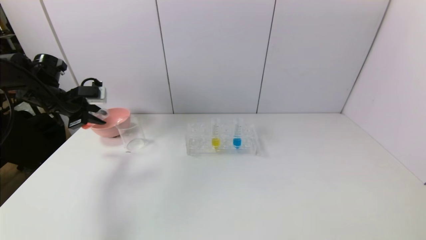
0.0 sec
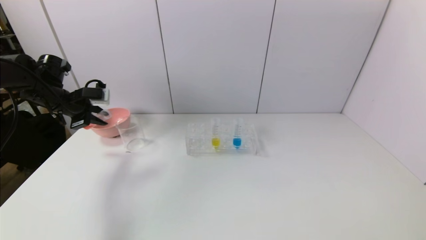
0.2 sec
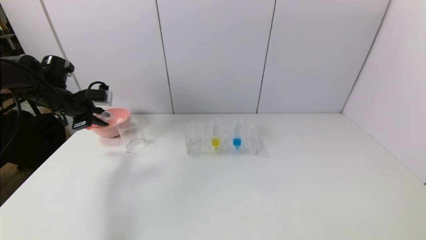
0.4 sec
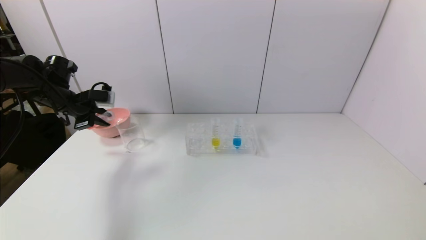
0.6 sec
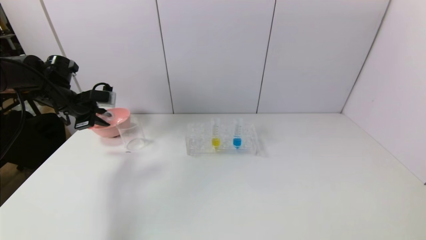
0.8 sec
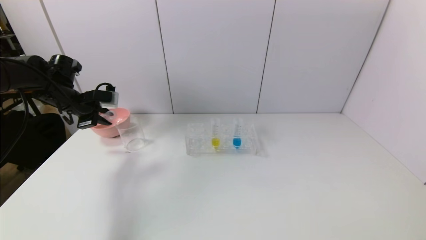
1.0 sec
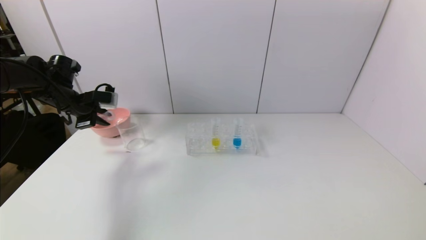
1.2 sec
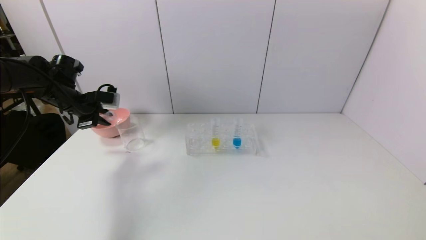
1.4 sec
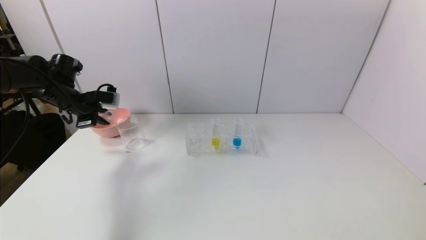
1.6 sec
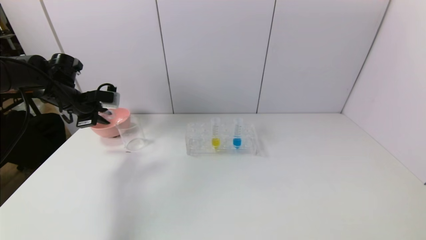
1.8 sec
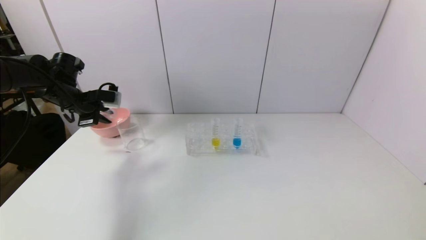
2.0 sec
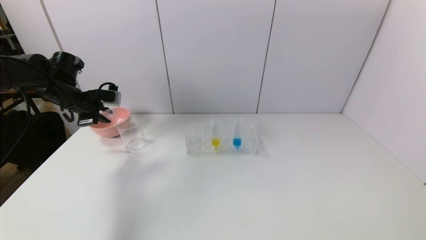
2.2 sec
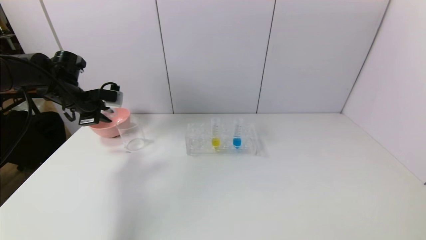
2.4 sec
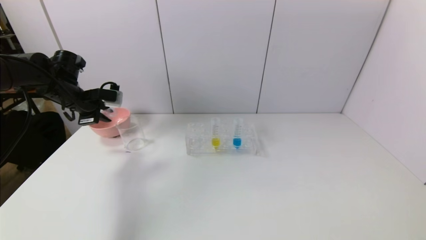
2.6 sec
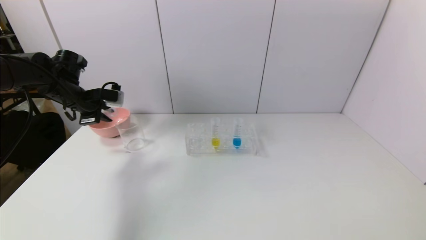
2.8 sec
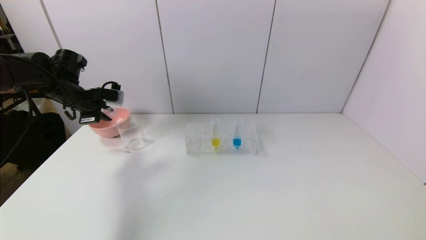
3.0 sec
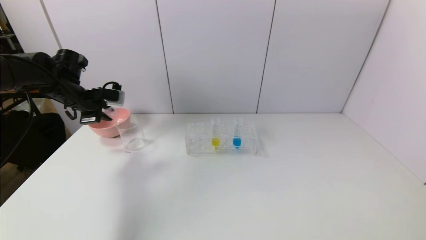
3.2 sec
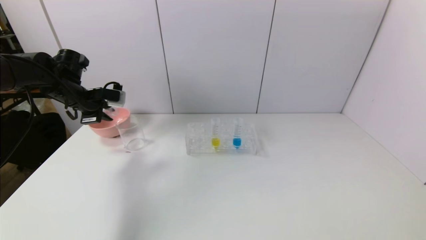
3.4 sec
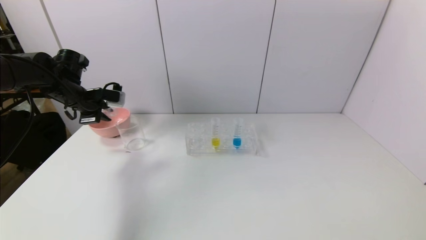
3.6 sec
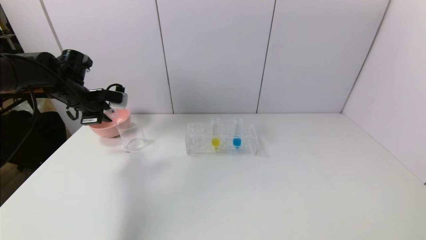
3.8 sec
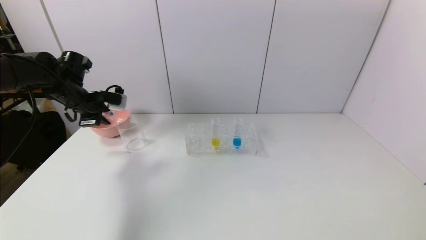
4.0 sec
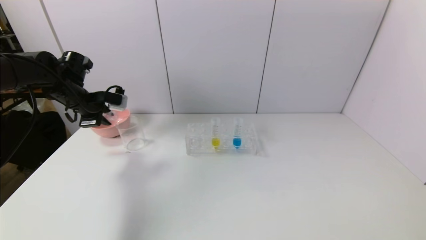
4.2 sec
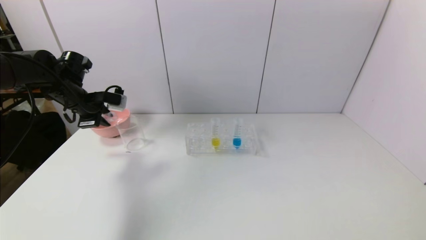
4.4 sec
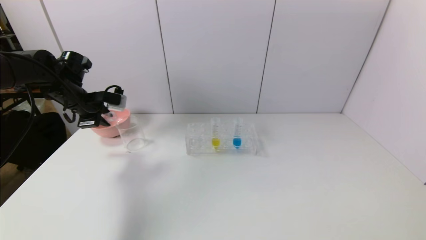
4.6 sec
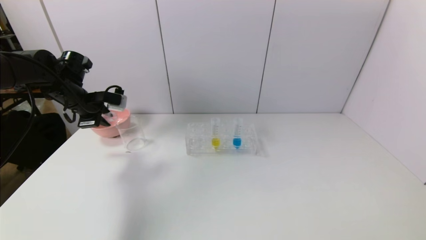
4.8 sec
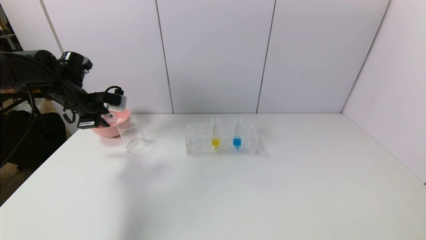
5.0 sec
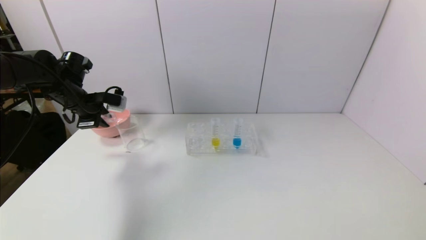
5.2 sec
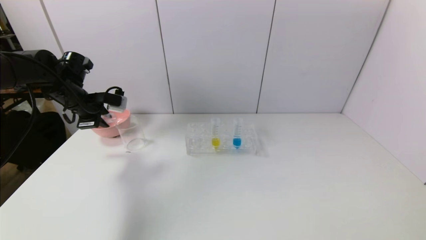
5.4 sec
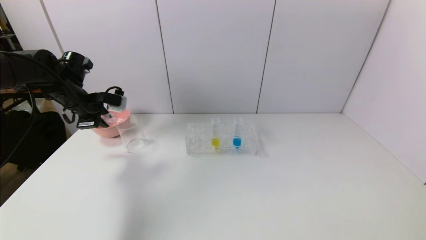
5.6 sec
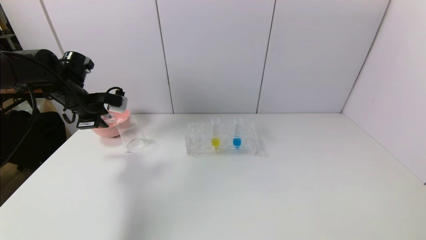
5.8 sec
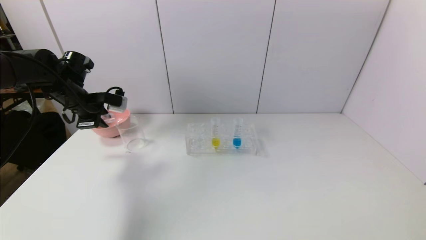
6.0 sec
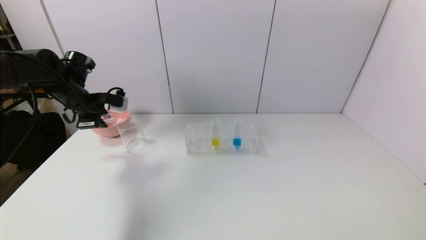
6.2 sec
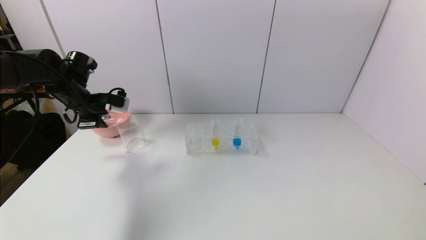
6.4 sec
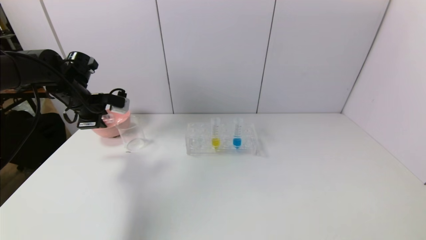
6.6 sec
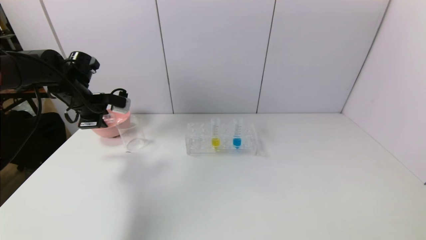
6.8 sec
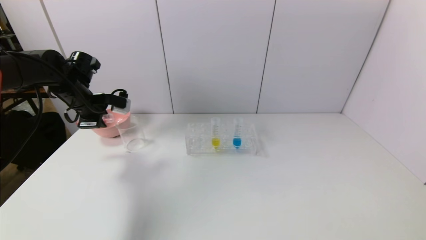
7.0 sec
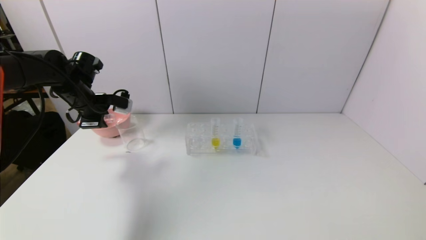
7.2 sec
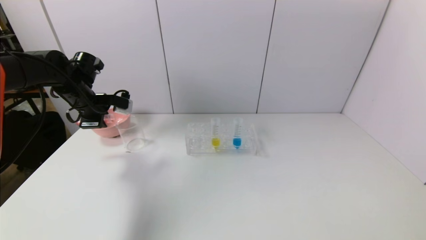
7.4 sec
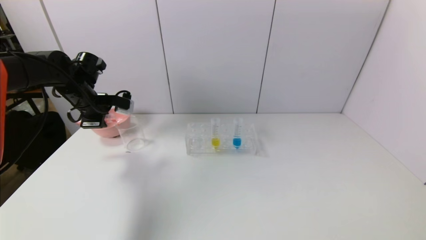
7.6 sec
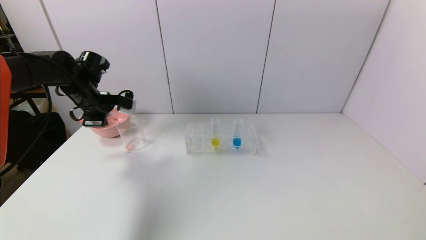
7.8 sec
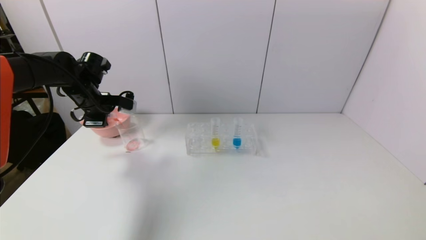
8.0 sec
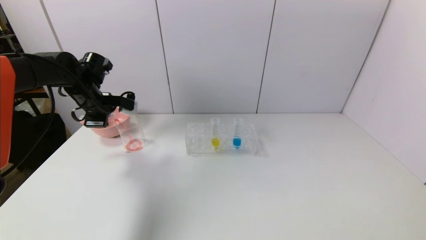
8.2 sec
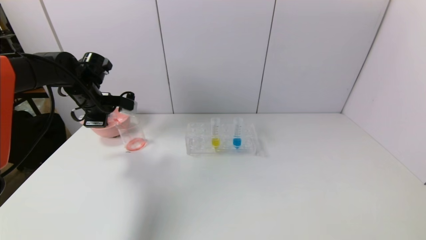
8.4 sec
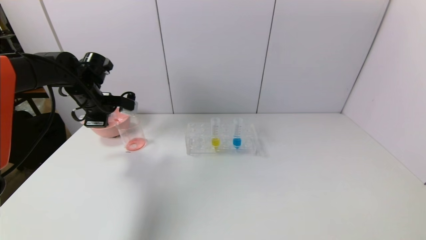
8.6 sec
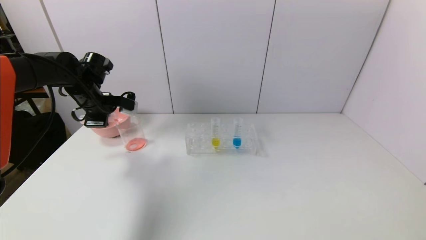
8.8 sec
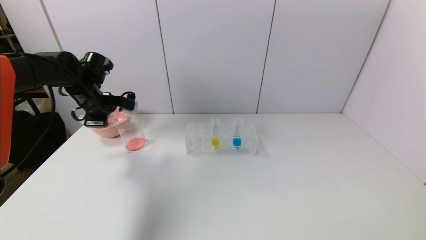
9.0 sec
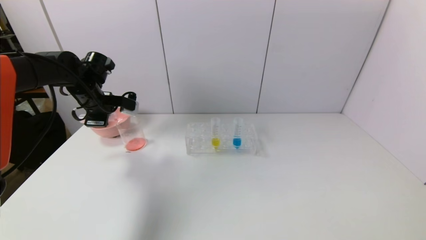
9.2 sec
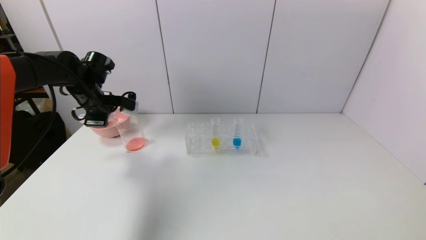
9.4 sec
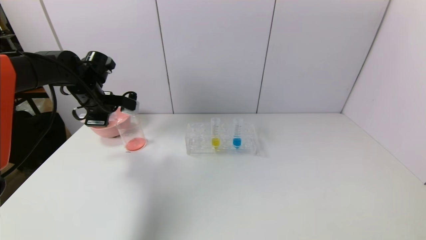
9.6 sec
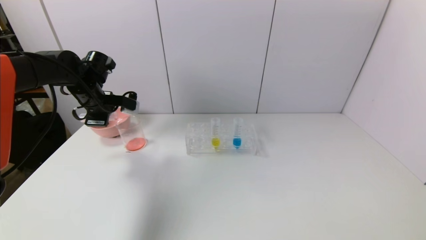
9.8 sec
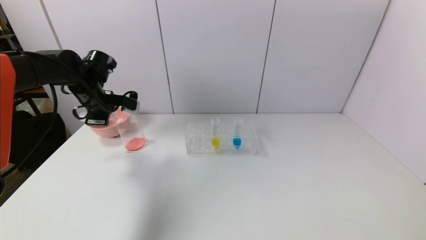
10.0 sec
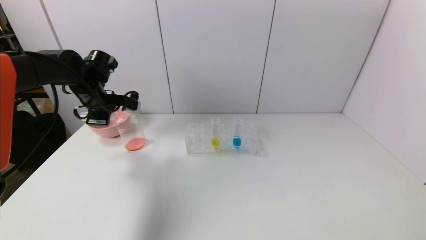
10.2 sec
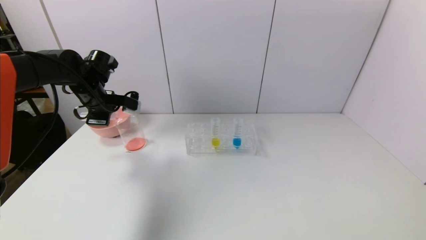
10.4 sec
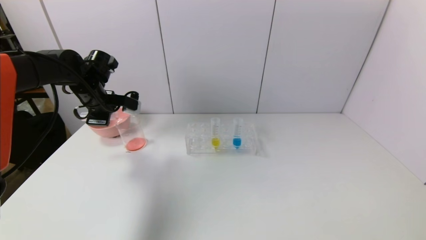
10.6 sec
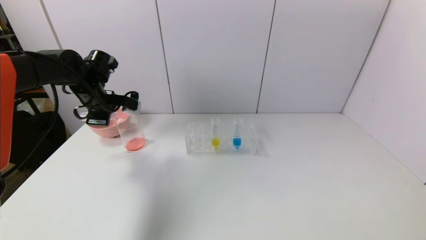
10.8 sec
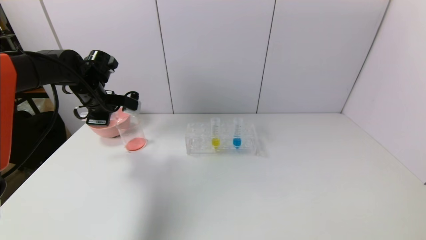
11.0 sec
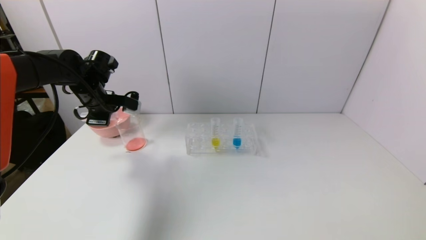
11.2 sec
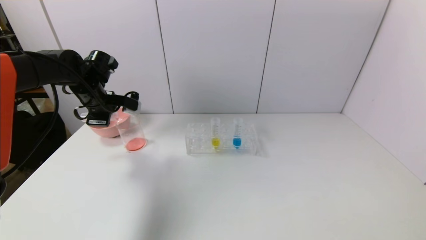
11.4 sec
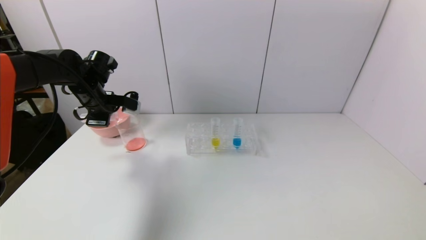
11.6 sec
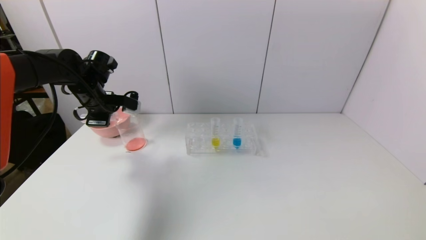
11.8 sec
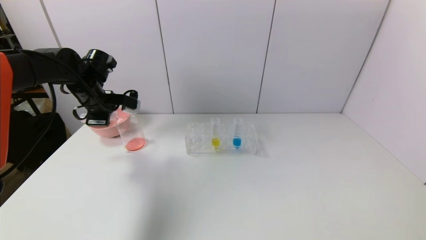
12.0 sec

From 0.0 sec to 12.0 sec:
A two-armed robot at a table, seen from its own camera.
Task of the whole recording: pick up the test tube with red pigment and the test tube with blue pigment by grippers and pour them into the container.
From 0.0 sec to 4.4 sec: There are only small adjustments of the grippers.
From 4.4 sec to 6.0 sec: Both grippers stay about where they are.
From 6.0 sec to 7.6 sec: The grippers make only small movements.
From 7.6 sec to 9.0 sec: Both grippers stay about where they are.
From 9.0 sec to 10.4 sec: The two grippers keep their place.
From 10.4 sec to 12.0 sec: Neither gripper changes place.

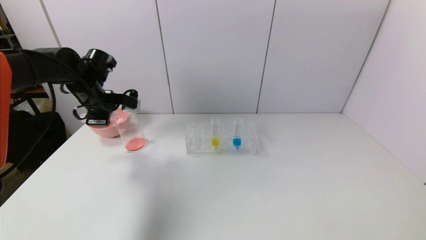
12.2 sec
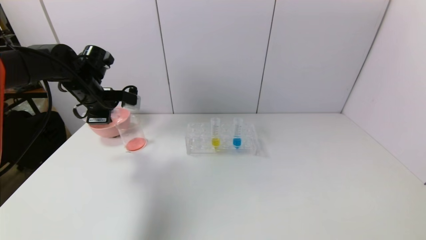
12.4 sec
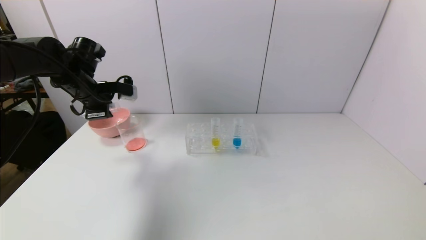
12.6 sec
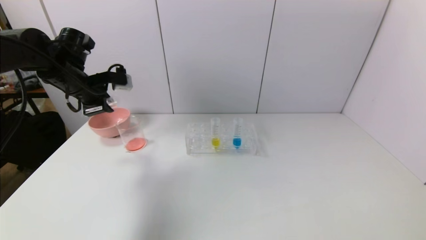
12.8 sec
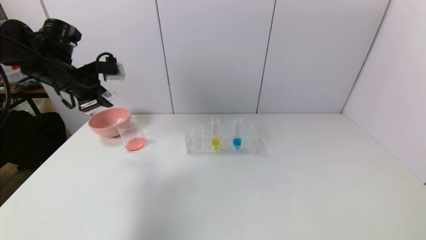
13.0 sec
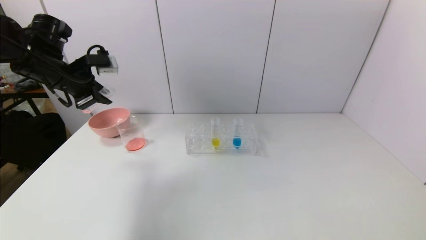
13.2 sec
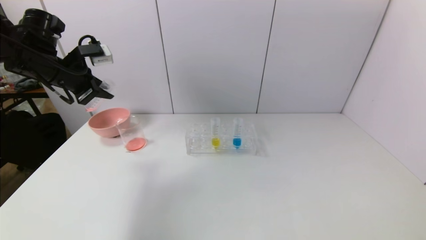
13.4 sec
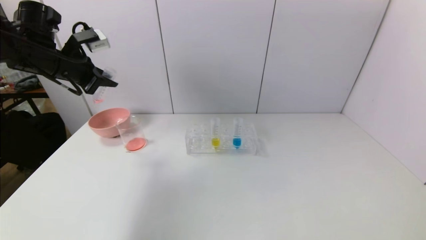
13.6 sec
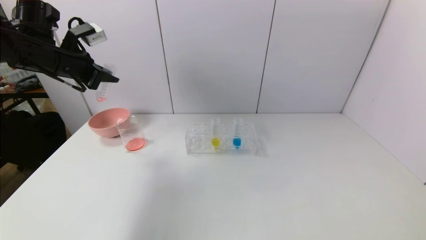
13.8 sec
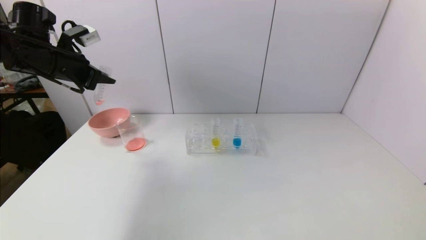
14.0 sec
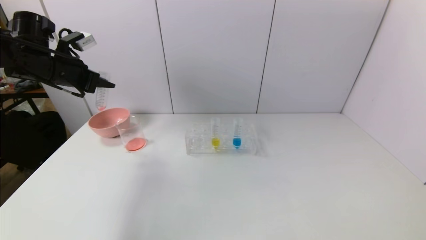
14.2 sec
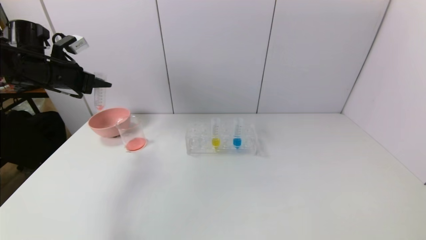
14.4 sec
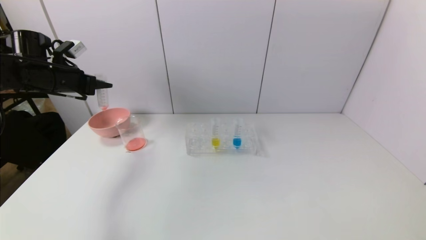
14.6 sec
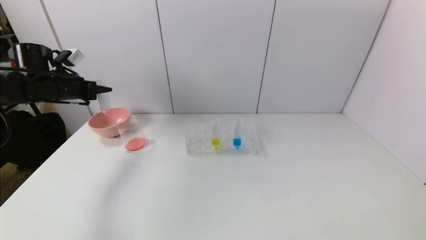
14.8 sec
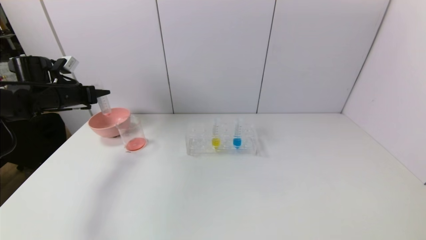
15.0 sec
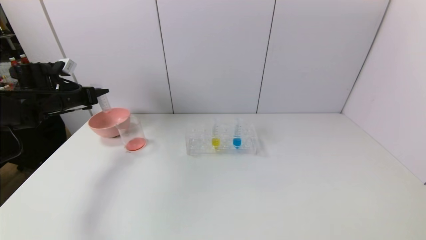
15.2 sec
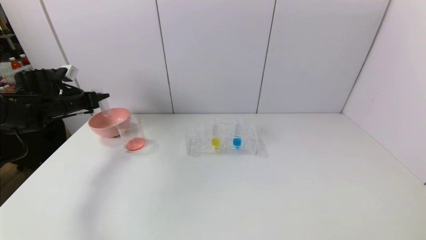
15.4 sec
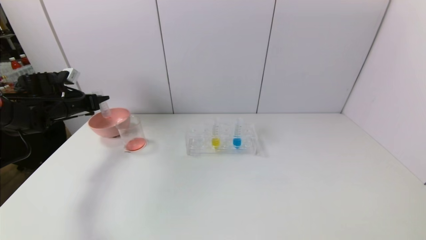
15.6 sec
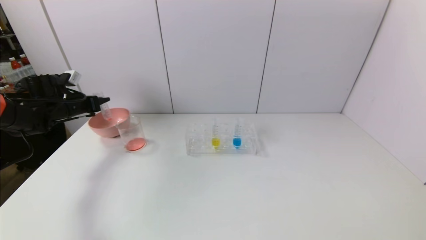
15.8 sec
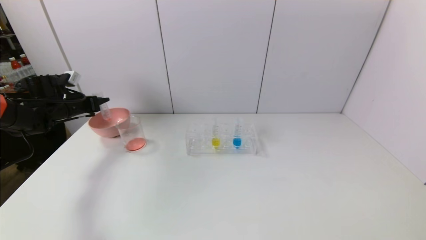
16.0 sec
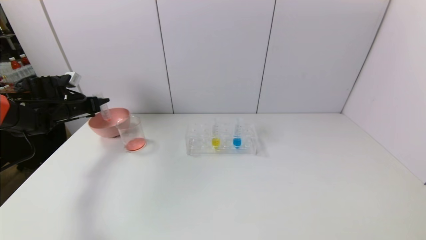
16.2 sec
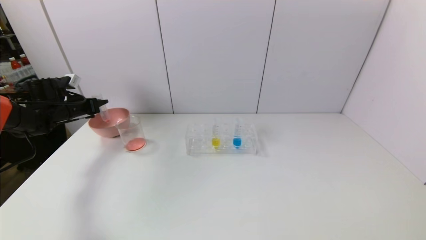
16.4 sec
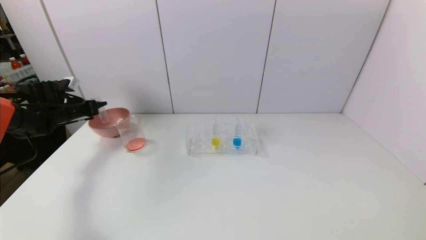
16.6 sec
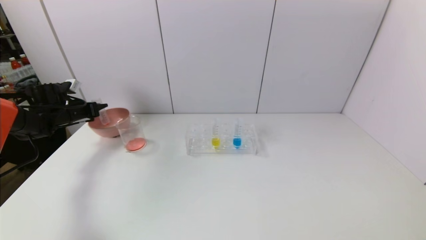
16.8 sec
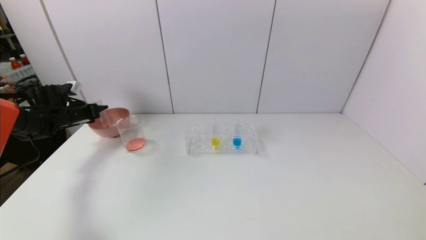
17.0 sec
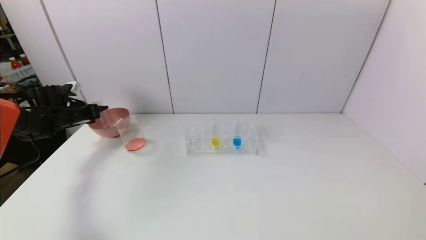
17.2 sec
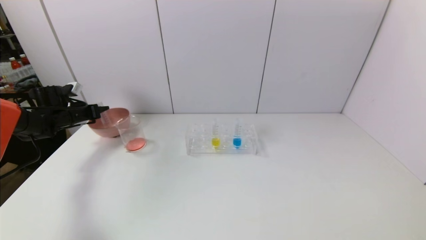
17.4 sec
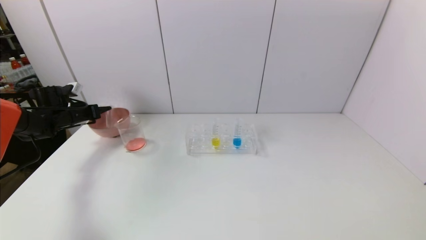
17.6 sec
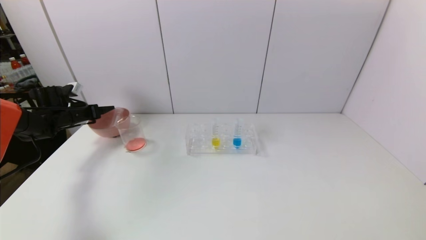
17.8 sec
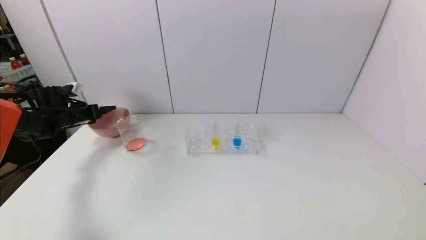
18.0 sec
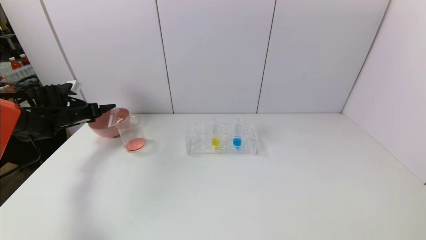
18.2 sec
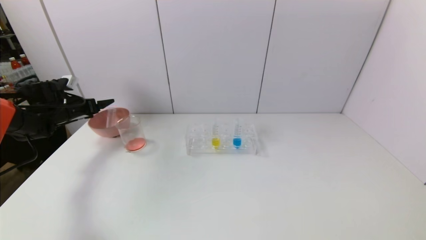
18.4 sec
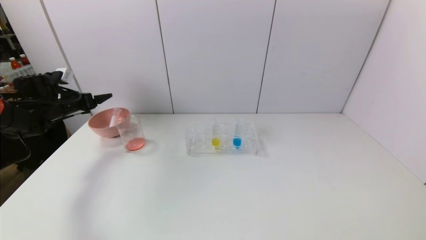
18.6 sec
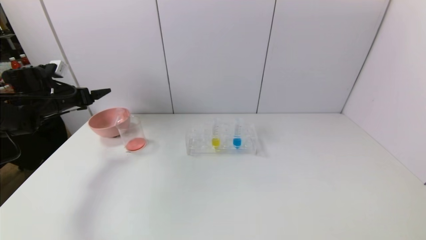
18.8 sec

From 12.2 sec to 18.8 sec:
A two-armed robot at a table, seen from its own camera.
Task of the whole recording: pick up the test tube with red pigment and the test tube with blue pigment by grippers and pour them into the container.
Step, from 12.2 sec to 14.6 sec: Pour the red reagent into the graduated cylinder with the left gripper.
From 12.2 sec to 13.8 sec: The left gripper travels upward by some 10 cm.
From 13.8 sec to 15.4 sec: The left gripper is displaced downward, to the left and forward by roughly 15 cm.
From 15.4 sec to 17.2 sec: The left gripper heads downward, covering roughly 5 cm.
From 17.2 sec to 18.8 sec: The left gripper travels upward and backward by roughly 10 cm, and opens its fingers.
